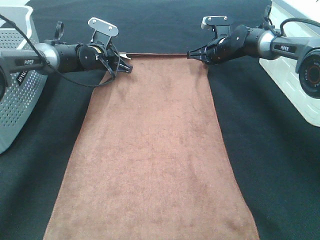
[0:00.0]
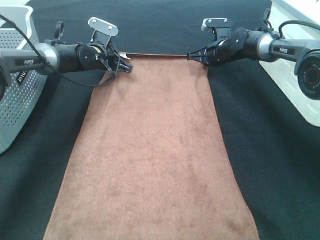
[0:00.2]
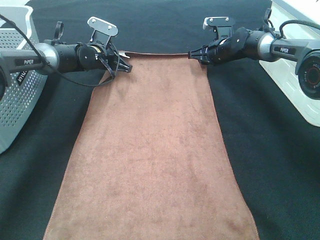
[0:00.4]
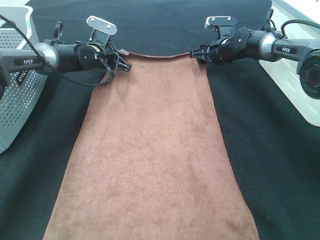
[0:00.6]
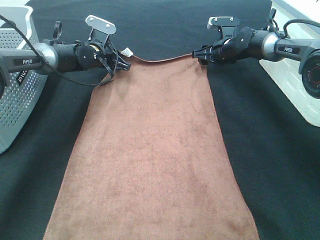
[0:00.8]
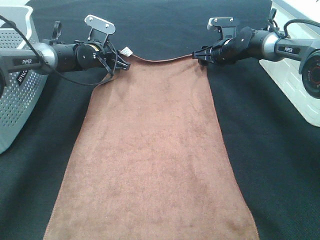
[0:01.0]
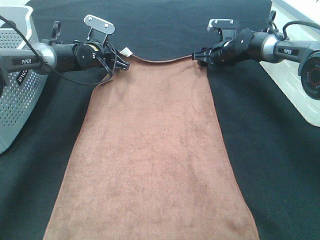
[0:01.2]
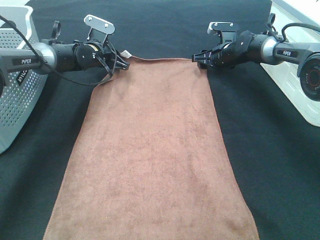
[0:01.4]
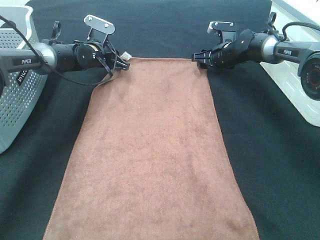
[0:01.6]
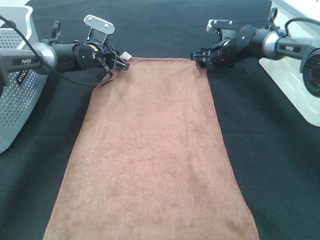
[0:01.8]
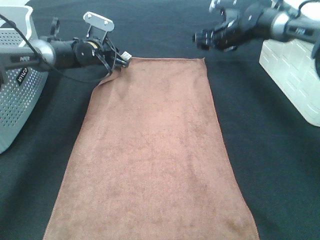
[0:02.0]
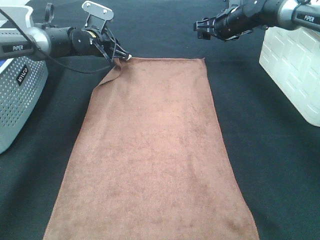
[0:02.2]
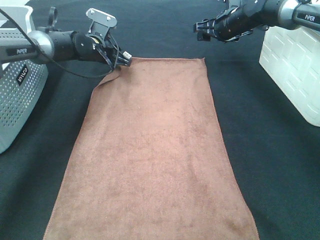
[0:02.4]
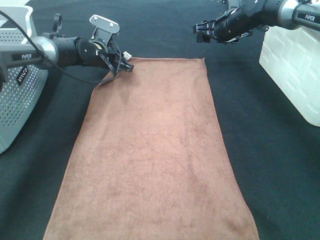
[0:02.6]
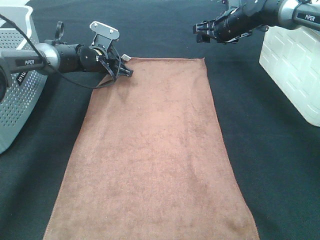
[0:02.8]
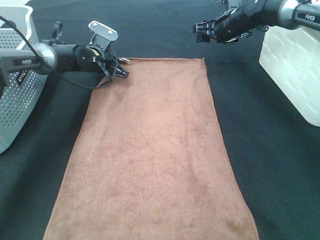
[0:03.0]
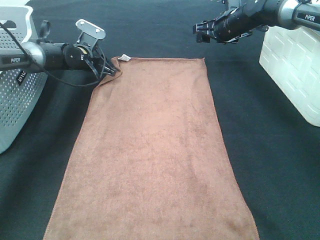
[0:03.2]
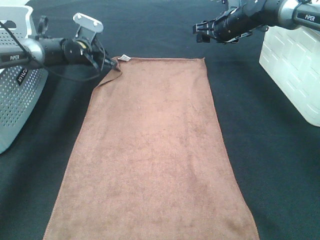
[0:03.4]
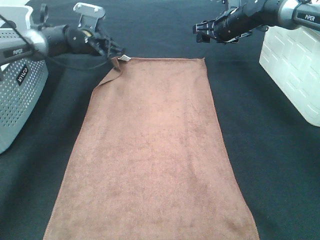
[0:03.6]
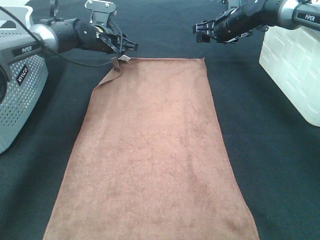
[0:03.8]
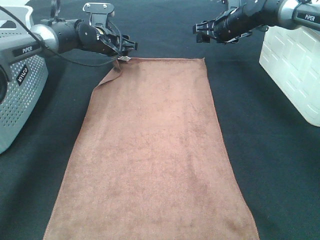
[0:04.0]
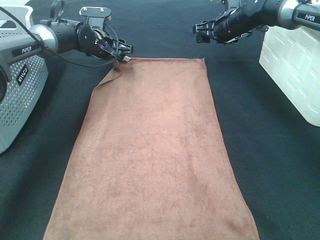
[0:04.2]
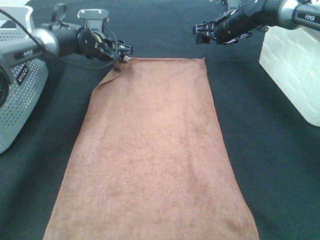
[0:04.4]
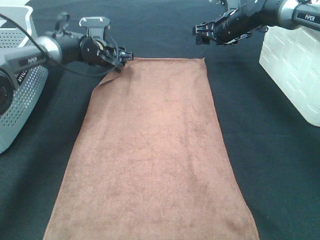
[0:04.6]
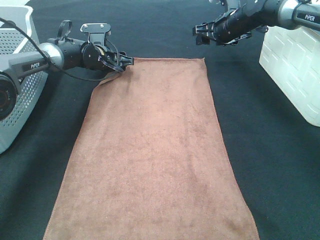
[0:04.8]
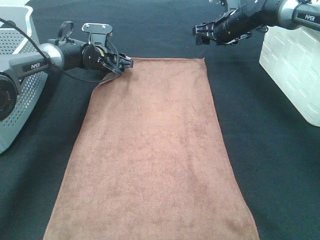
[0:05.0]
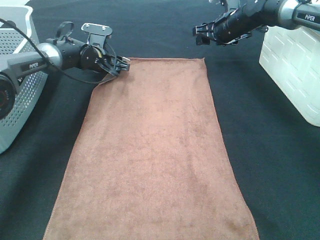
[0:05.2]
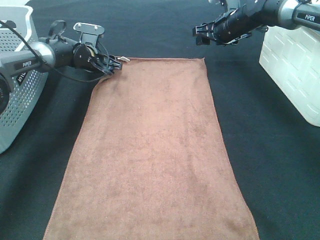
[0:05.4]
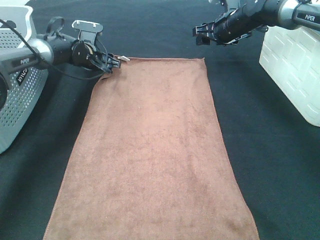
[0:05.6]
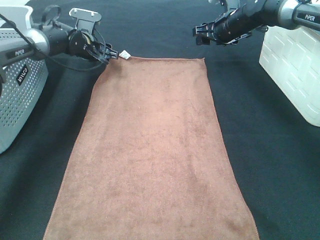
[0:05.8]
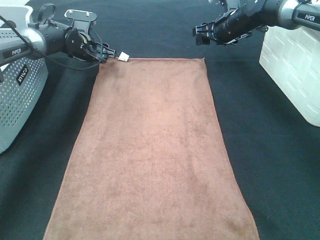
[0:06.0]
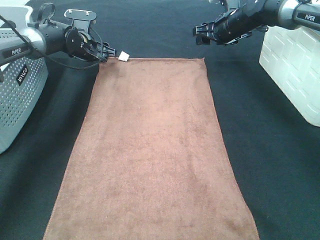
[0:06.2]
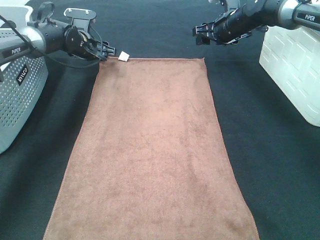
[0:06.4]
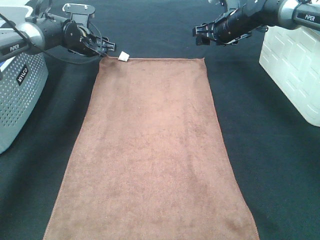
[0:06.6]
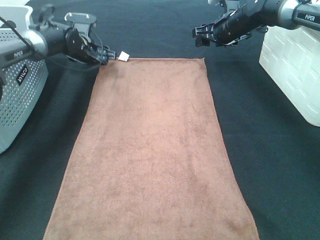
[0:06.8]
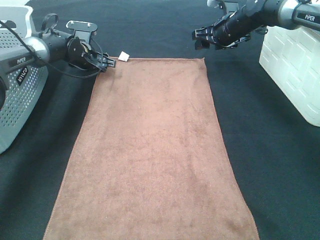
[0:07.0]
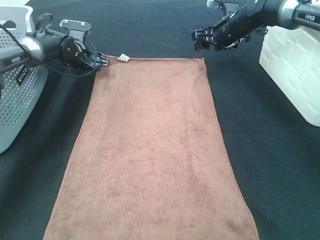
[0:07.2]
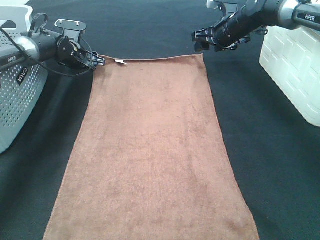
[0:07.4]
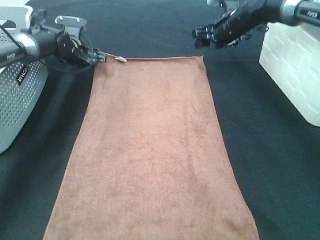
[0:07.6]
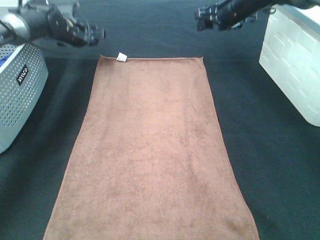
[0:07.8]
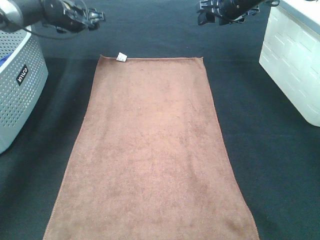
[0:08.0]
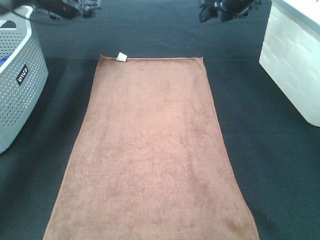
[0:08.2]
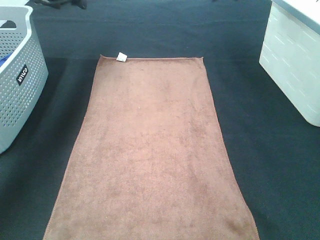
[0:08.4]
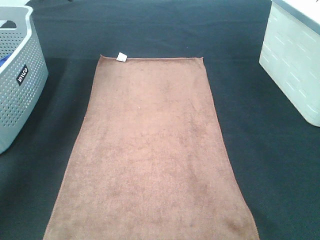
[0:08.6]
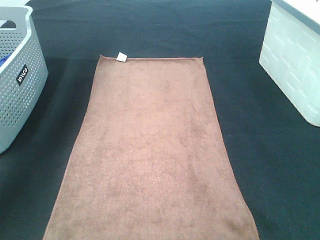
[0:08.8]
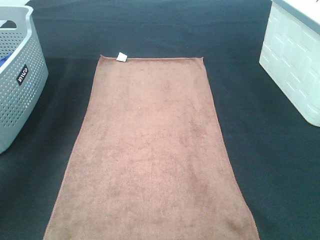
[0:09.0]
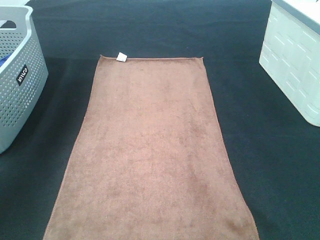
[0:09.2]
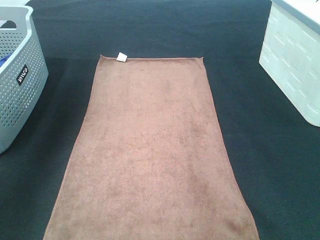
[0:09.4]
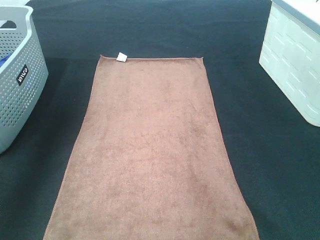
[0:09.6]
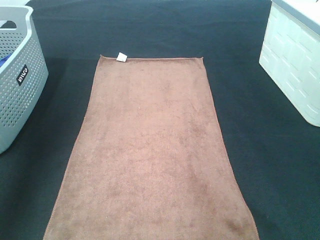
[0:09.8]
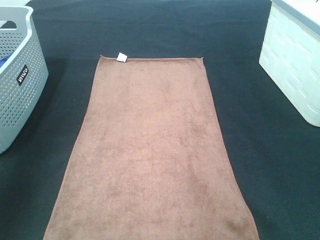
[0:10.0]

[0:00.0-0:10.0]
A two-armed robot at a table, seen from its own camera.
Task of the whole recording: Remove the towel and place it.
0:00.0 to 0:01.4: The left gripper opens its fingers, while the right gripper opens.
0:01.4 to 0:02.8: The right gripper shifts approximately 10 cm upward.
0:02.8 to 0:04.2: The grippers stay close to where they were, moving slightly.
0:04.2 to 0:05.8: The grippers stay close to where they were, moving slightly.
0:05.8 to 0:07.2: The grippers stay close to where they were, moving slightly.
0:07.2 to 0:08.6: The right gripper shifts roughly 25 cm upward and backward, while the left gripper moves upward, roughly 25 cm.
0:08.6 to 0:10.0: Both grippers travel together backward, approximately 35 cm.

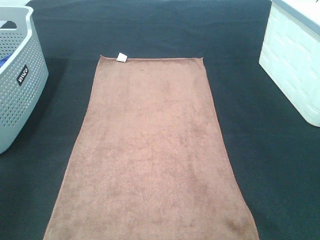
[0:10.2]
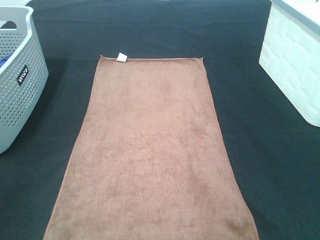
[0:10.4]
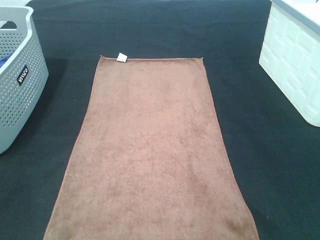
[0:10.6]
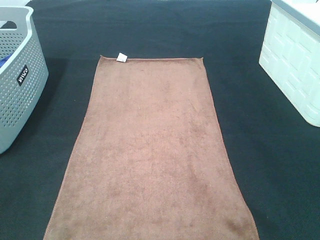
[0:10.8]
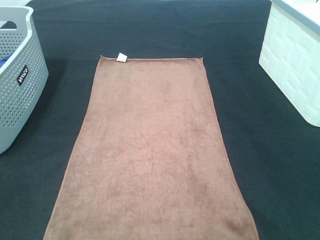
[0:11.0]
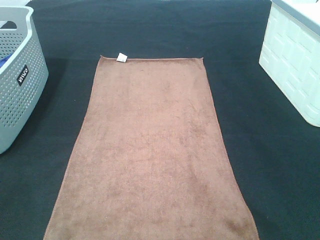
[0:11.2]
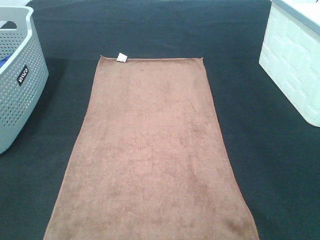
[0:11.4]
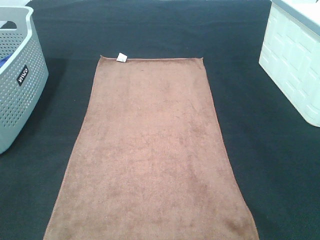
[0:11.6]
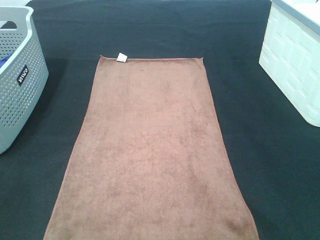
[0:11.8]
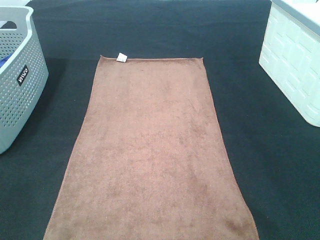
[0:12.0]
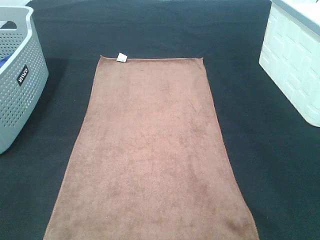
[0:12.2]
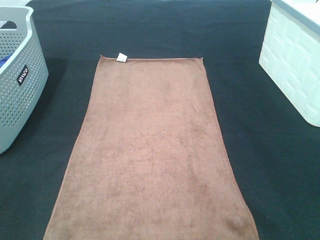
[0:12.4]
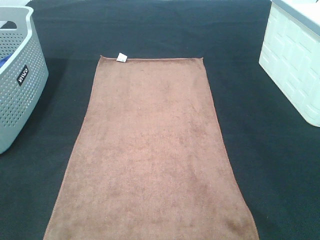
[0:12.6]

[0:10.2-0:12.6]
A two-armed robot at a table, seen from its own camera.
Task of the whole recording: Remove the towel and place it.
0:11.4 to 0:12.6: The two grippers keep their place.

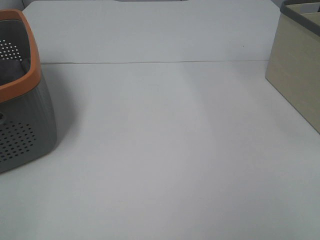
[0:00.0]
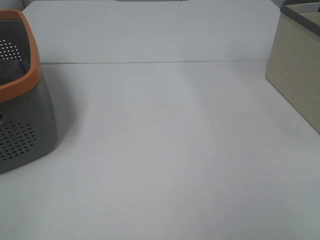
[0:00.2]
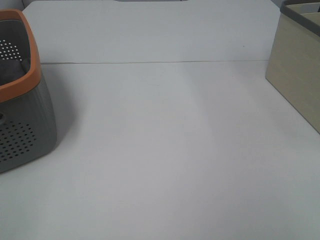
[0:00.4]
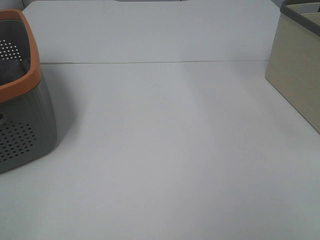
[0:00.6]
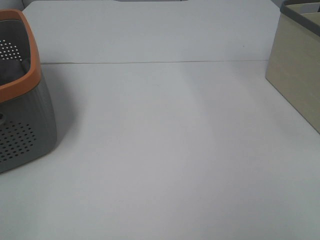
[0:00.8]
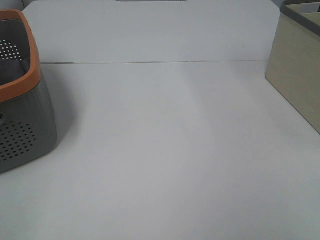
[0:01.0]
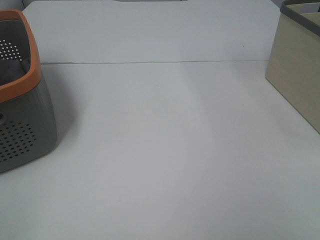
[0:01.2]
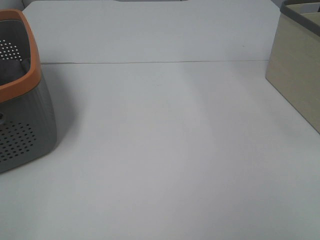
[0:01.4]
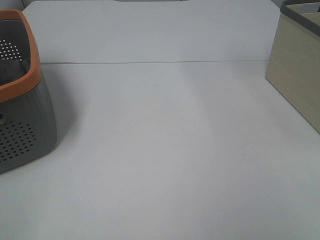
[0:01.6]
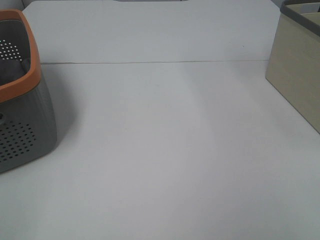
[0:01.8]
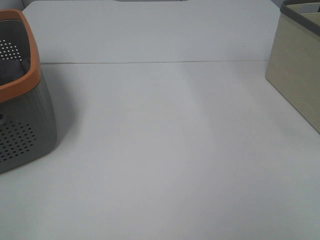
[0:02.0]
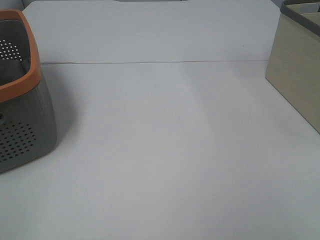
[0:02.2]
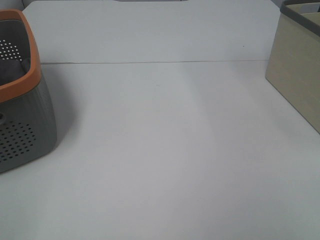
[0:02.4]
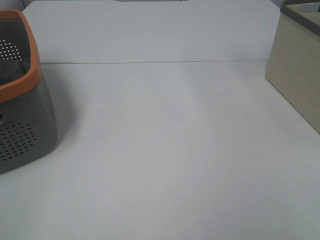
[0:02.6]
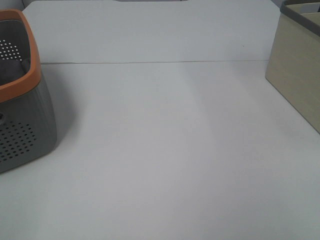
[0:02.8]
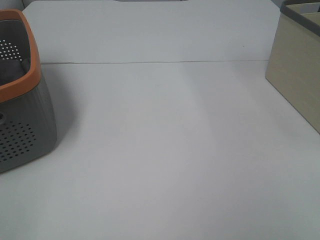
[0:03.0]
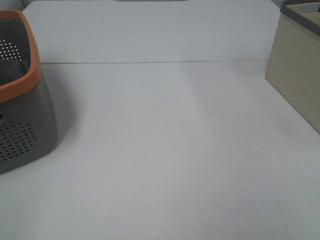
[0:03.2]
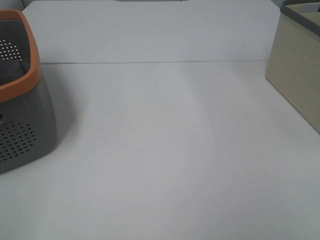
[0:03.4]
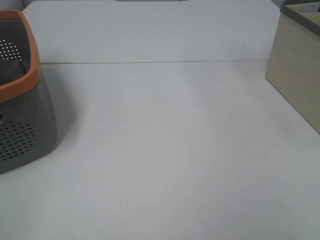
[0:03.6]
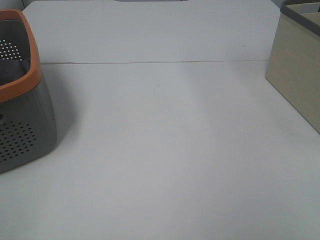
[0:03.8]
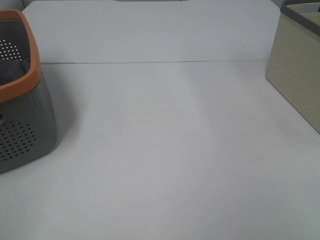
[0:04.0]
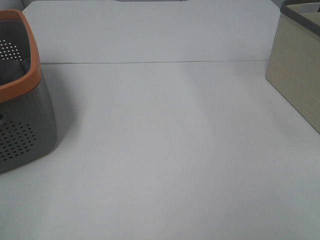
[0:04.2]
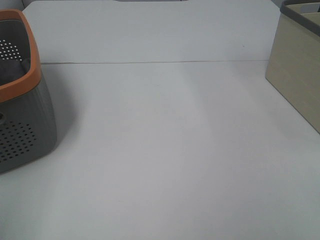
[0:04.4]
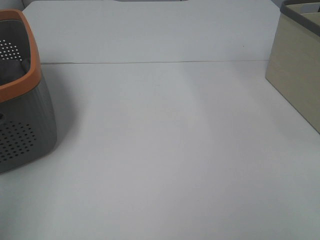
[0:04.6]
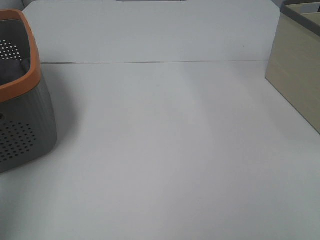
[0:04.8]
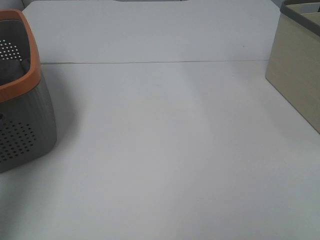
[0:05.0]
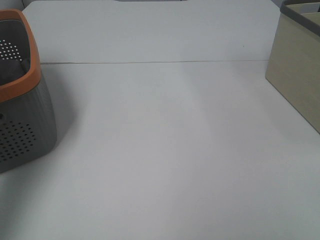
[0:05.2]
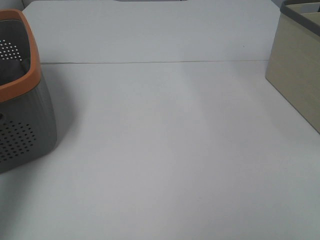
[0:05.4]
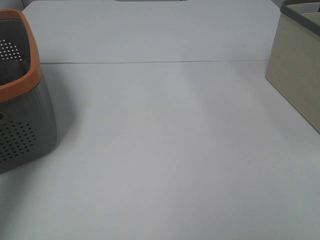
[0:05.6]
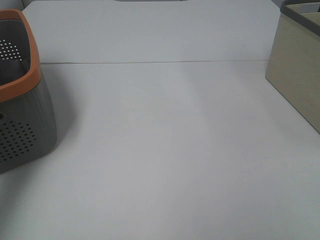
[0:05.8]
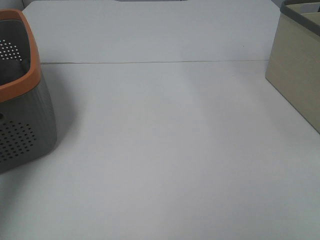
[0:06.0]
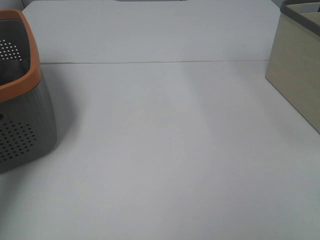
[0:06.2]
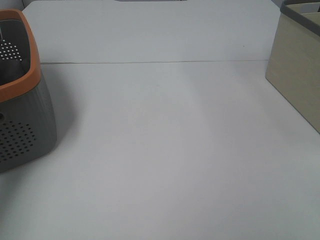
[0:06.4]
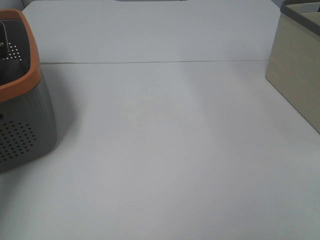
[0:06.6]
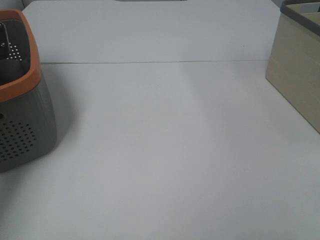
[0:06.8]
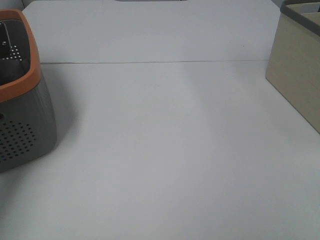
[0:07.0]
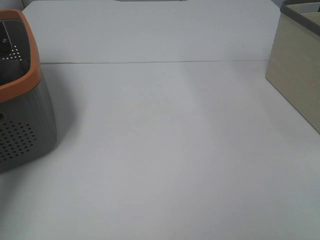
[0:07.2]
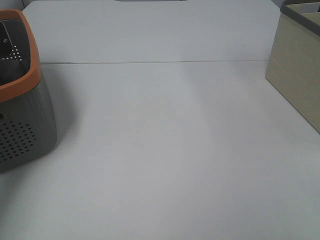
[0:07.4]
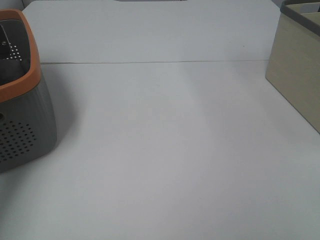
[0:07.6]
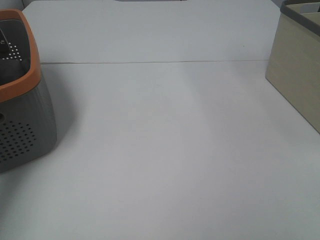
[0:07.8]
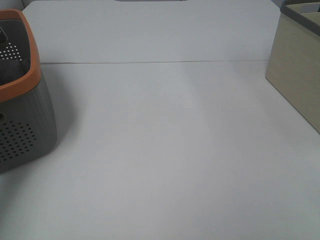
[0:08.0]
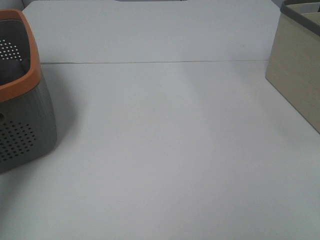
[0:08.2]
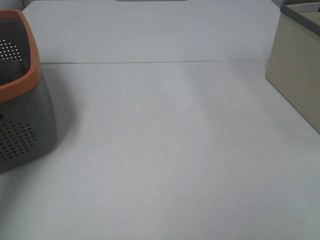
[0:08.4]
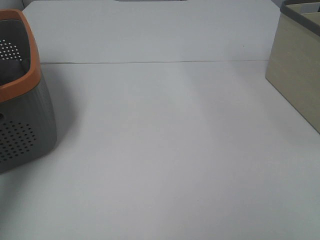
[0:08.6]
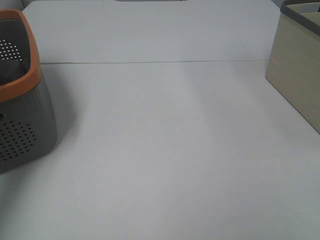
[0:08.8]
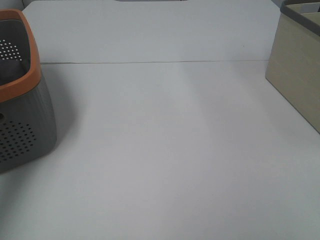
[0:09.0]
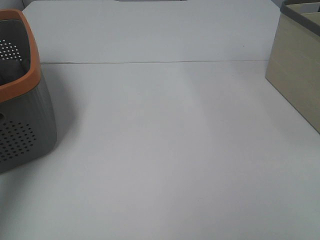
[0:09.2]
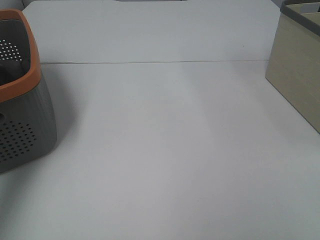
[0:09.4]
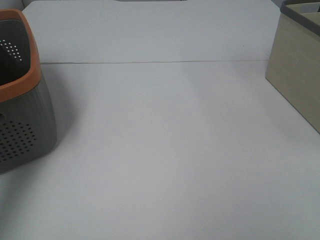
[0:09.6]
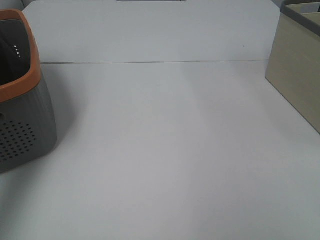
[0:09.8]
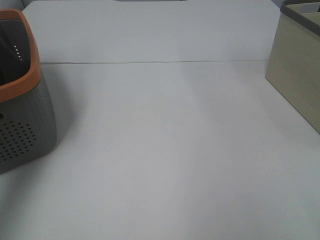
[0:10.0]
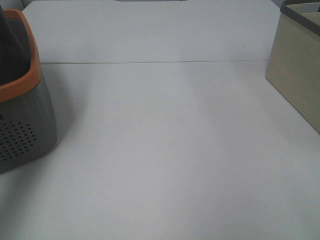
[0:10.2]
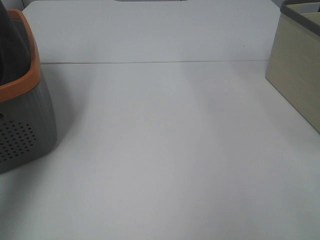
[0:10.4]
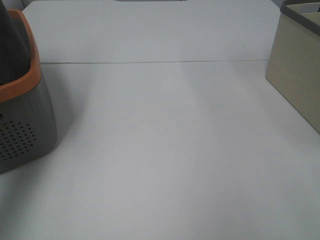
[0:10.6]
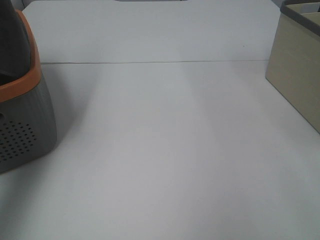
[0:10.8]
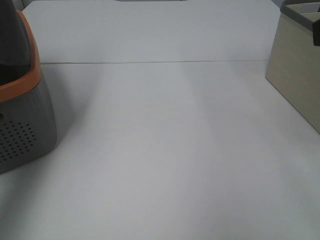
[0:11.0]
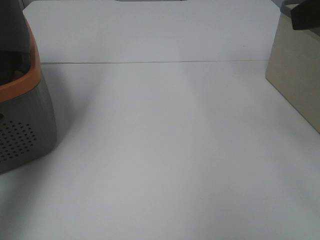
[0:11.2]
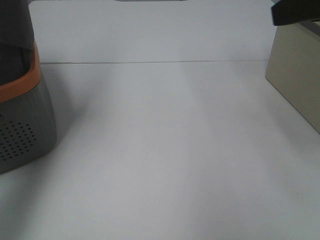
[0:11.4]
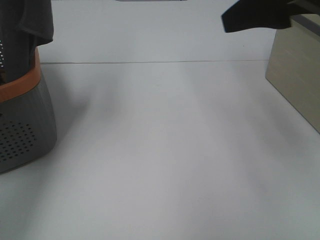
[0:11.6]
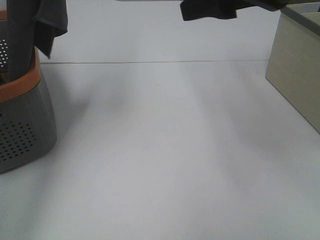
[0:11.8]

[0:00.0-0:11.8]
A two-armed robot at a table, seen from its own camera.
Task of the whole recording: Remove the towel and place it.
0:00.0 to 0:03.0: The two grippers keep their place.
0:04.4 to 0:06.0: The left gripper is displaced forward by about 30 cm.
0:08.8 to 0:10.4: The left gripper travels upward by about 20 cm.
0:10.4 to 0:11.8: The right gripper travels forward and to the left by roughly 20 cm. The left gripper heads to the right and upward, covering roughly 10 cm.
